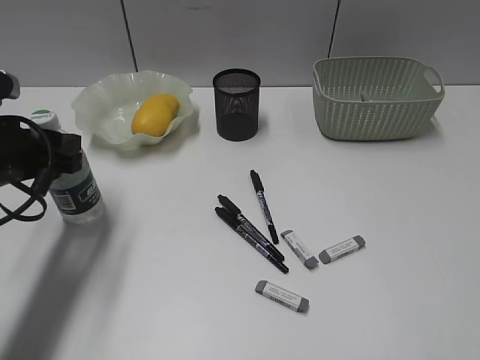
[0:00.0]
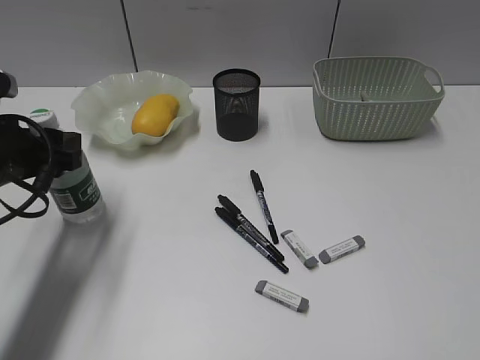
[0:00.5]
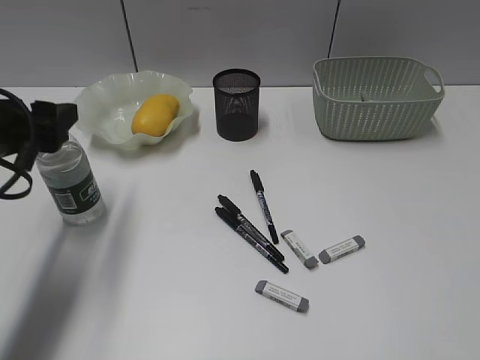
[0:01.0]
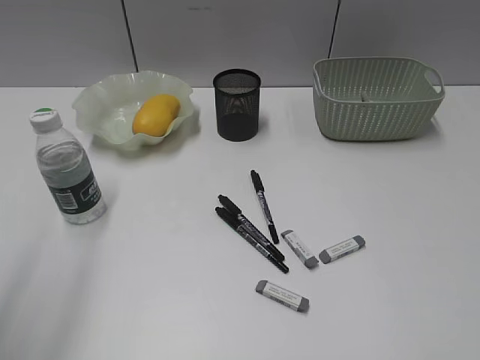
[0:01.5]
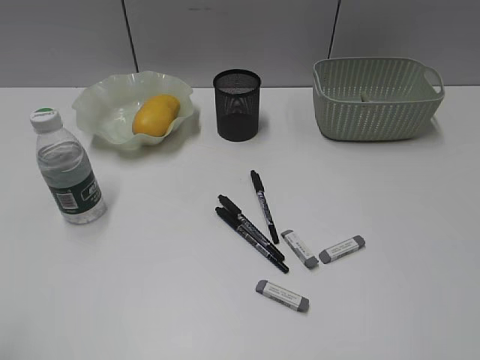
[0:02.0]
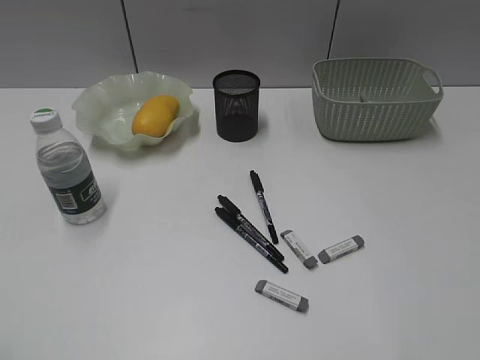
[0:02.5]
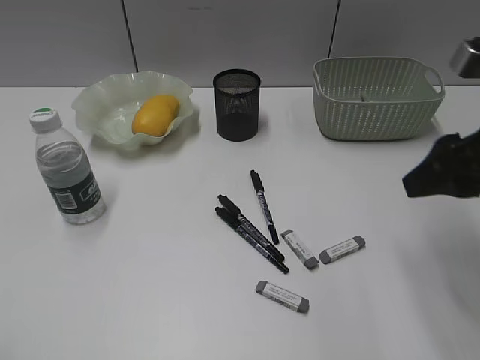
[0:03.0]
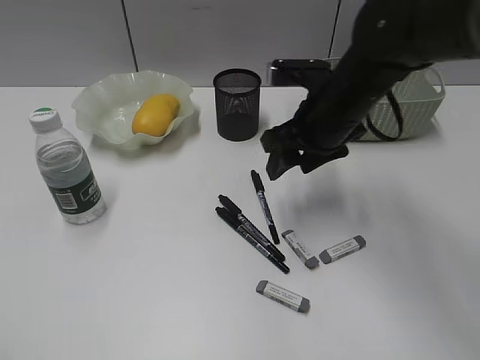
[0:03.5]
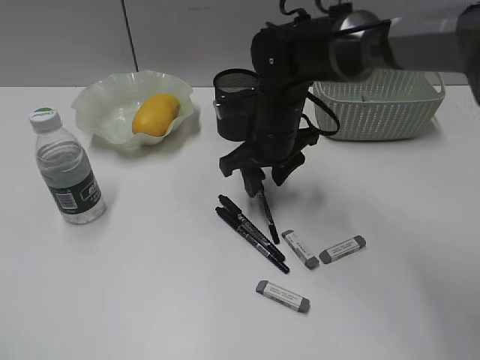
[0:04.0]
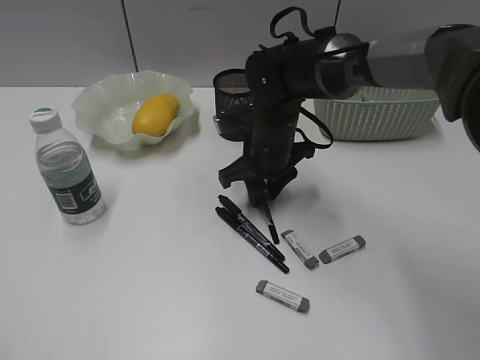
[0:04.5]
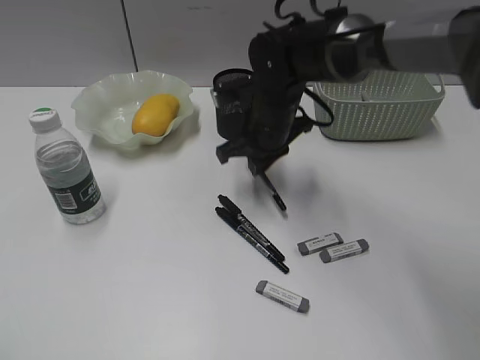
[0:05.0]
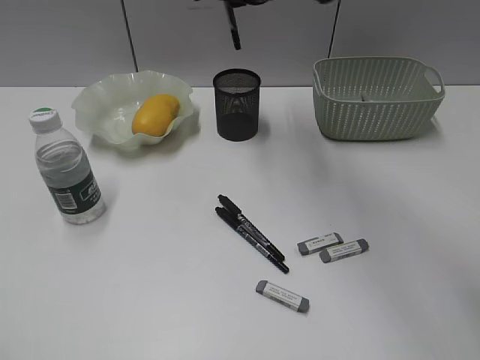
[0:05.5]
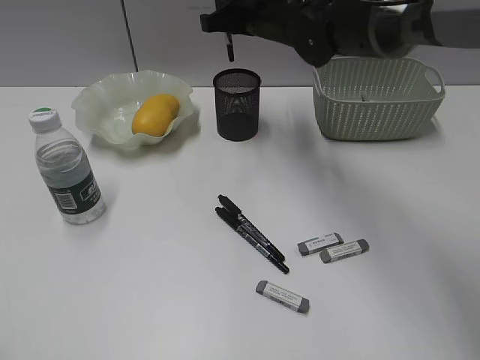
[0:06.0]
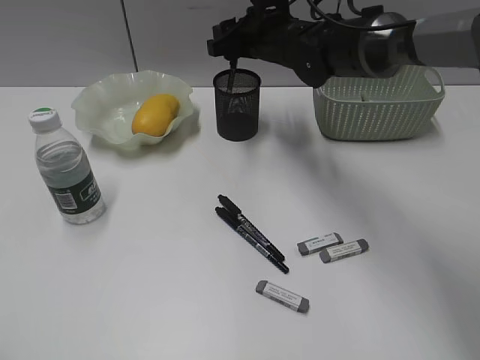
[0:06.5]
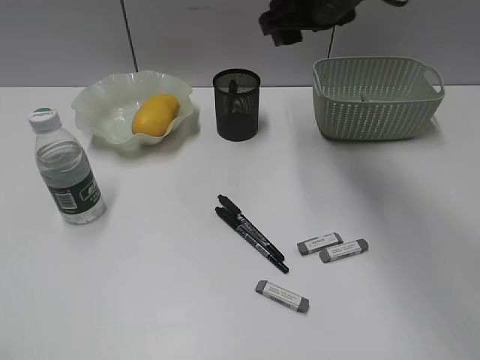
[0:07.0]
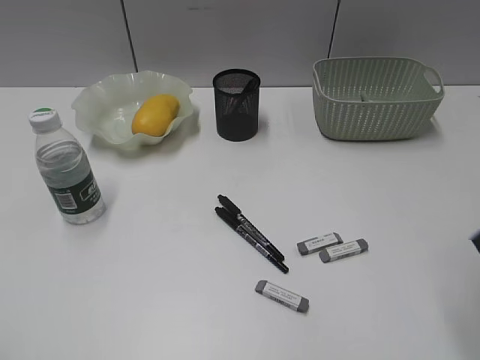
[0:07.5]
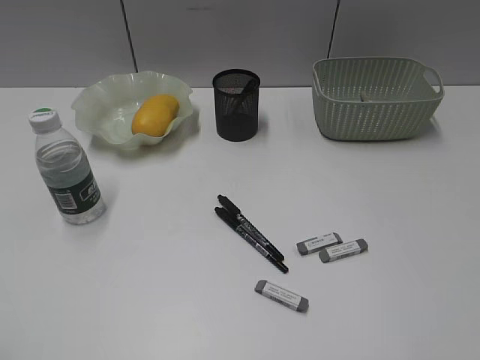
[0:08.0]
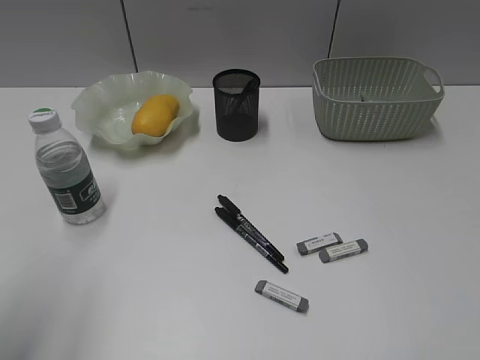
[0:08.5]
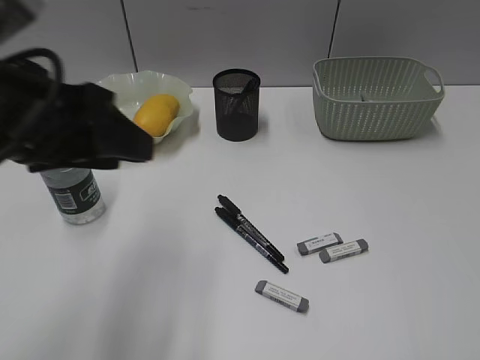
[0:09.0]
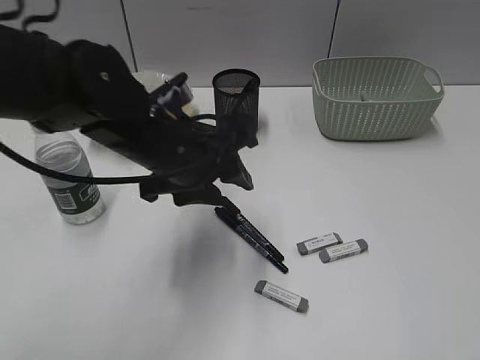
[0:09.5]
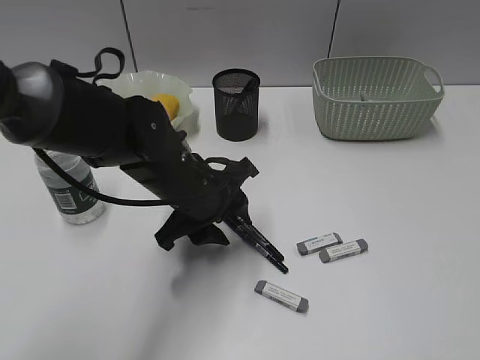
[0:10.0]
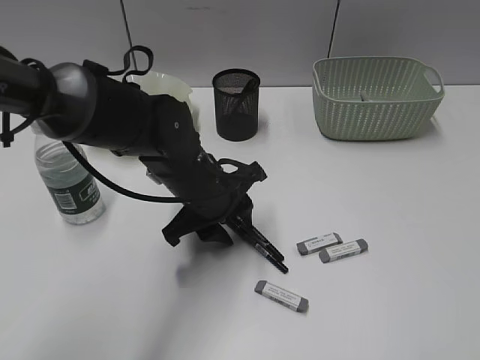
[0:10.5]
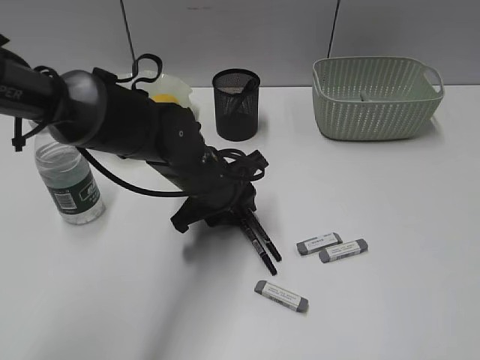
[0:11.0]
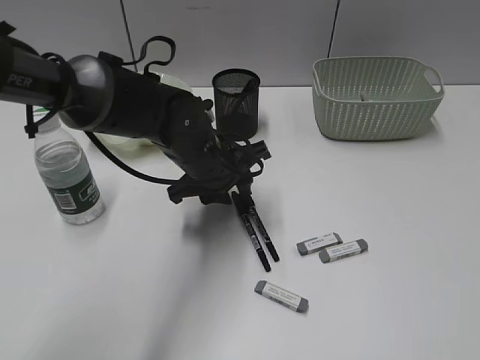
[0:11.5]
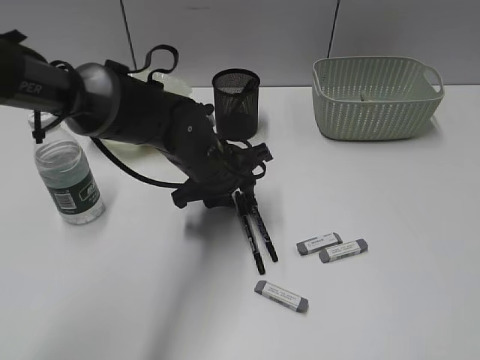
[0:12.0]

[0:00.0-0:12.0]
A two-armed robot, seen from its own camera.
Step, 0:01.5 to 0:04.5: Grasp the black pen with right gripper.
0:00.0 to 0:02.0: The left gripper heads backward and upward, covering roughly 25 cm.
0:02.0 to 0:04.0: The right gripper moves forward, to the left and downward, roughly 50 cm.
0:04.0 to 0:06.0: The right gripper moves upward and forward, roughly 15 cm, and closes its fingers.
0:06.0 to 0:08.0: The right gripper shifts about 50 cm backward and to the right, and opens its fingers.
0:08.0 to 0:10.0: The left gripper travels forward, to the right and downward by roughly 40 cm.
0:10.0 to 0:12.0: The left gripper heads forward, covering about 5 cm.

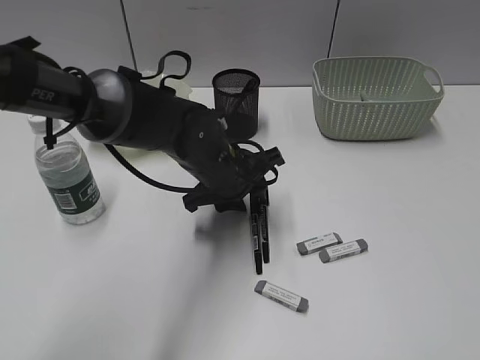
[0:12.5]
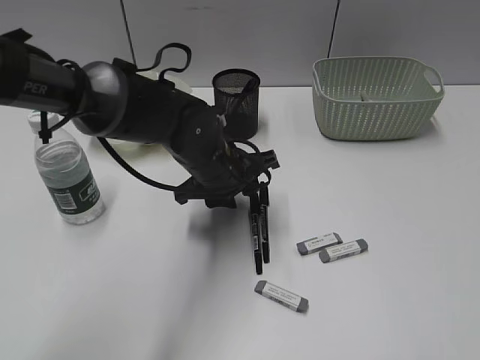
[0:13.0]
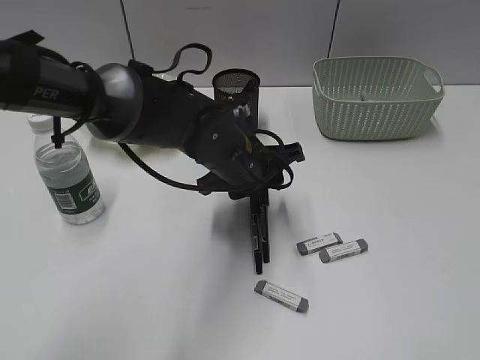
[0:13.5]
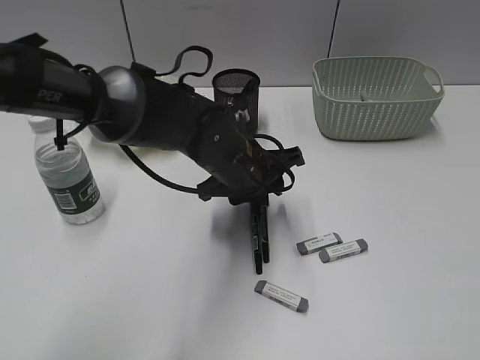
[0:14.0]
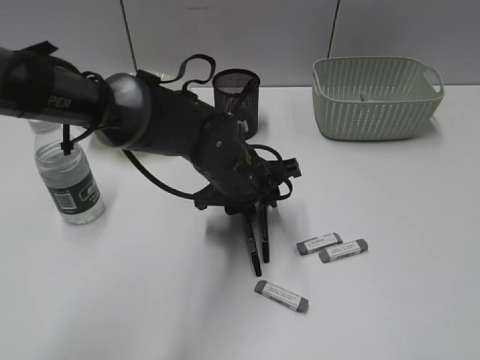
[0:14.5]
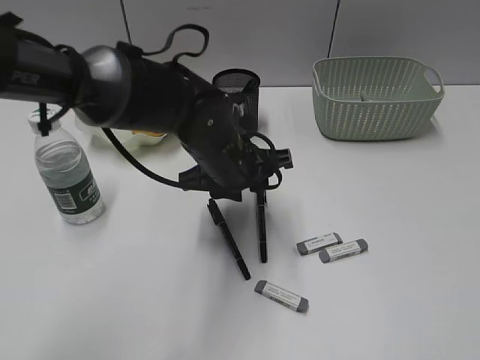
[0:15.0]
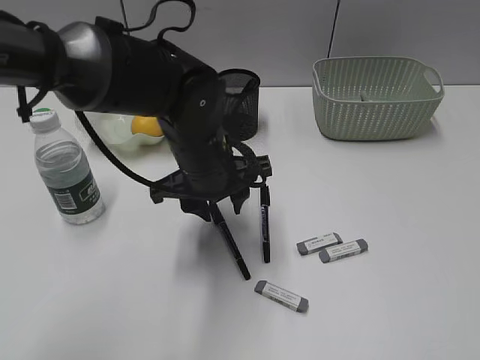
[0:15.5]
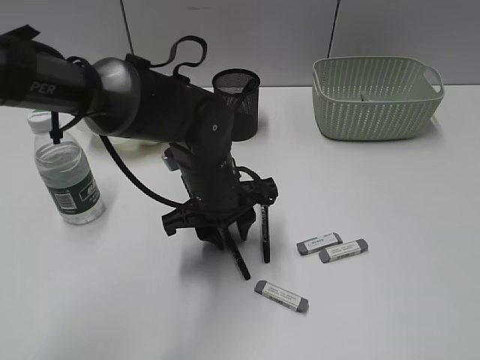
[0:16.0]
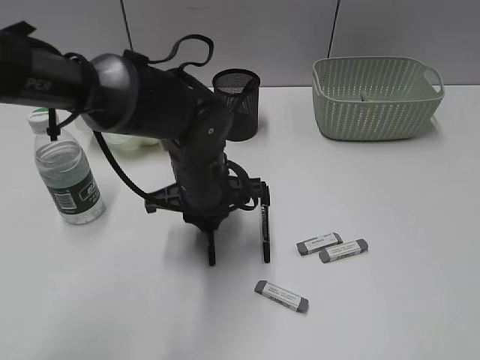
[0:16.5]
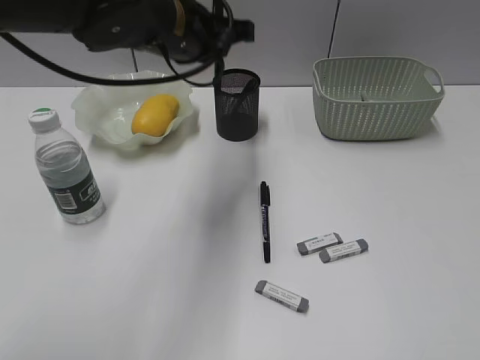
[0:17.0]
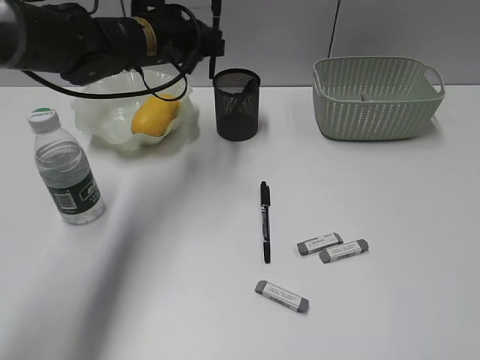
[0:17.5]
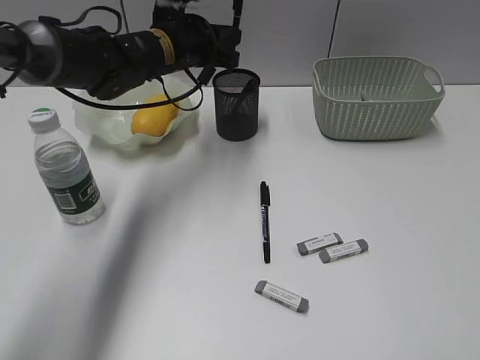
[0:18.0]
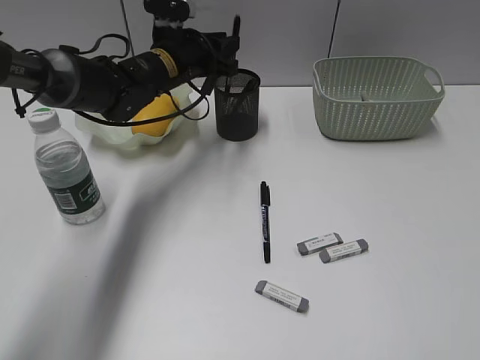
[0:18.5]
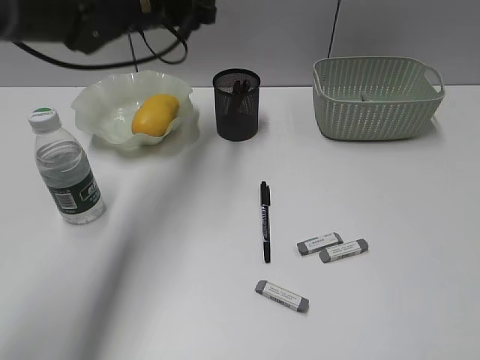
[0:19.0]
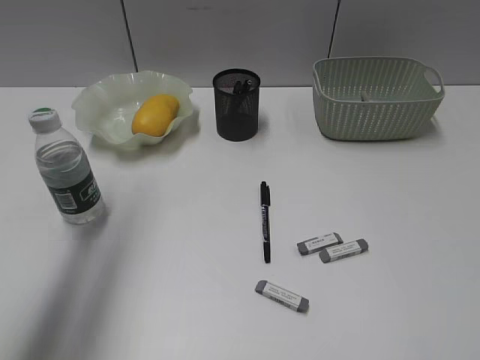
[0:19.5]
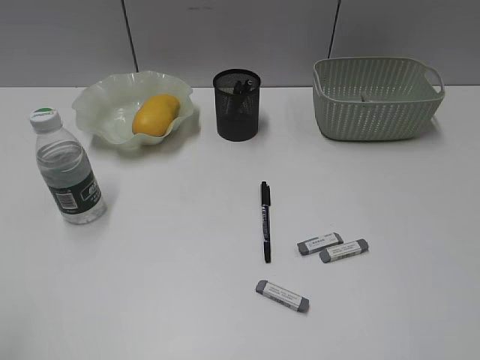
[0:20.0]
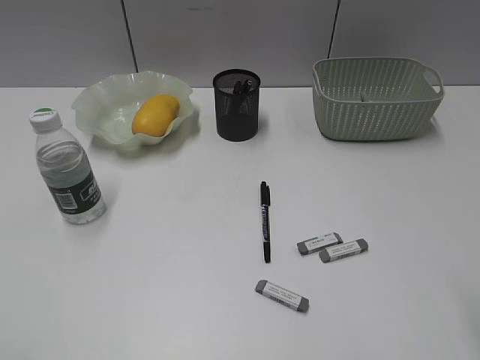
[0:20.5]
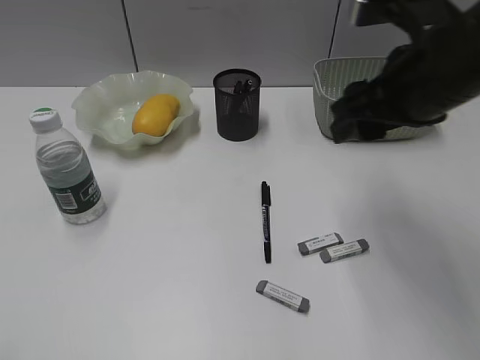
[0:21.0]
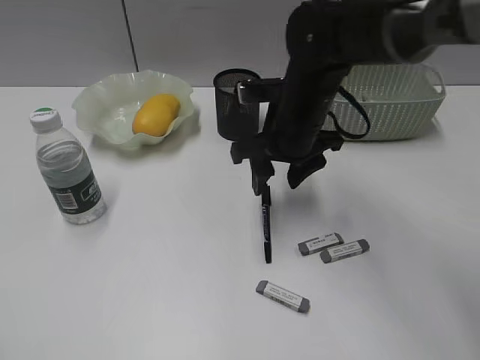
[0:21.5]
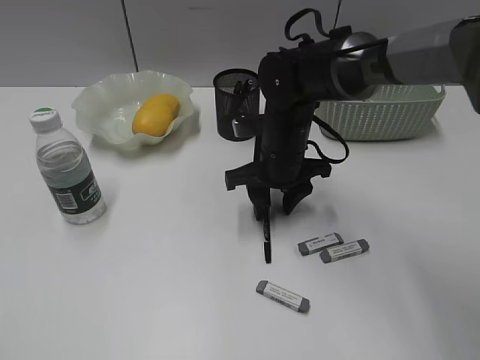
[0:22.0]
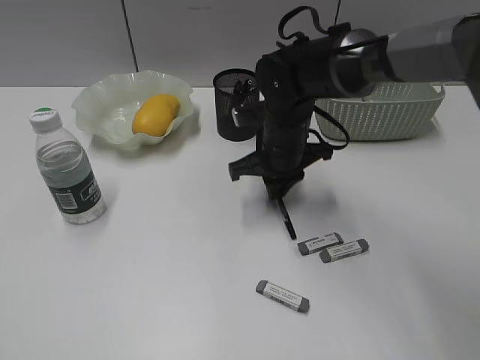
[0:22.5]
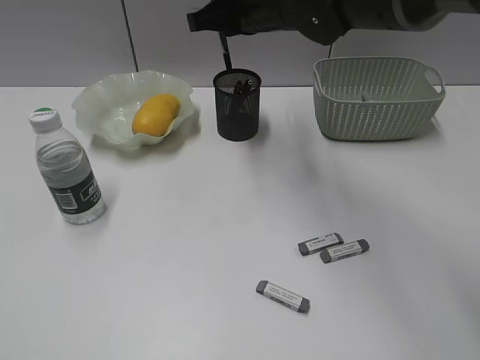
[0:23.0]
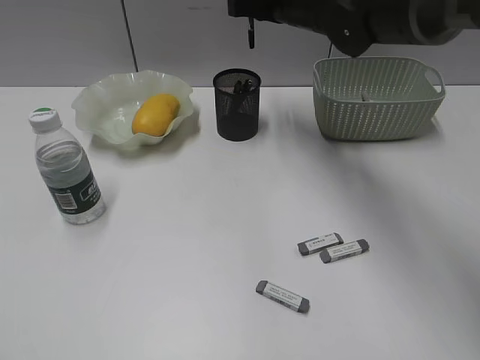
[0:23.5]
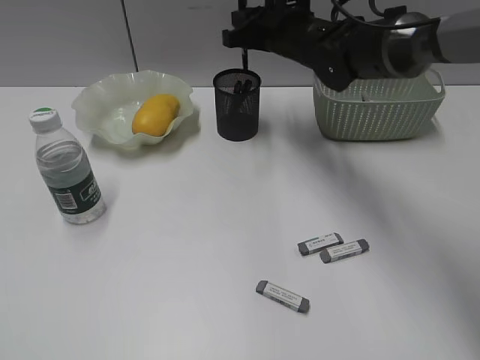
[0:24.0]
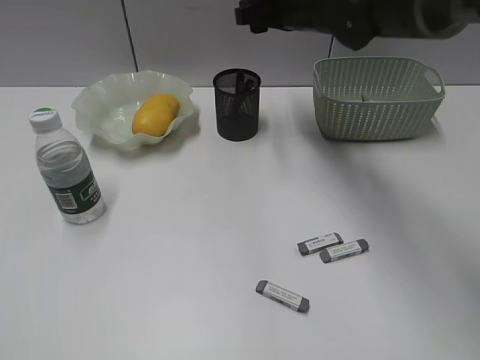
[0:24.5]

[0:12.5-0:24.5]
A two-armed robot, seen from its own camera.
Step, 0:12.5 to 0:16.5: Grasp the black pen with left gripper.
Step, 0:17.0 to 0:18.5: Place the black pen in pen holder with left gripper.
Step, 0:19.0 to 0:22.0: Grasp the black pen with right gripper.
0:12.5 to 0:14.5: The grippers make only small movements.
0:14.5 to 0:16.5: The left gripper closes.
0:16.5 to 0:18.5: The left gripper is displaced forward by about 15 cm.
0:18.5 to 0:20.5: The right gripper travels forward and to the left by about 10 cm, while the left gripper heads backward and to the left, covering roughly 50 cm.
0:20.5 to 0:22.5: The right gripper shifts approximately 40 cm forward, to the left and downward, and closes its fingers.
0:22.5 to 0:24.5: The right gripper swings up and down, approximately 15 cm each way, with 2 reversals, and opens.

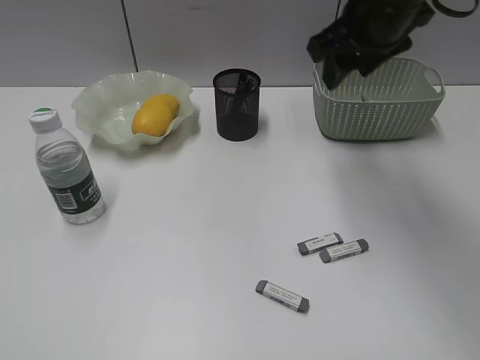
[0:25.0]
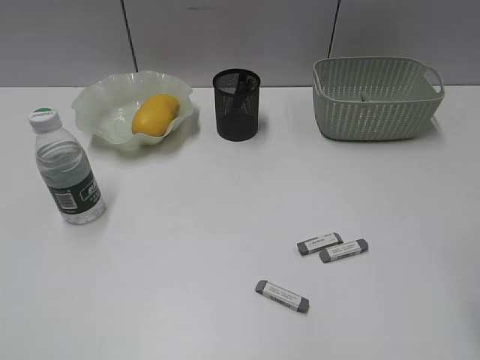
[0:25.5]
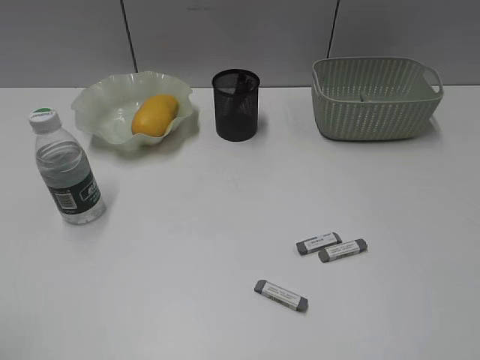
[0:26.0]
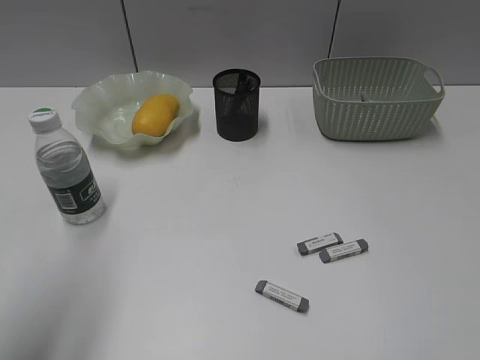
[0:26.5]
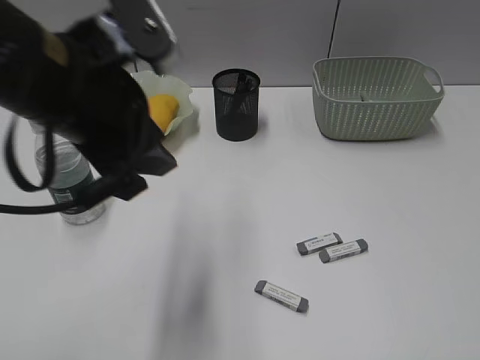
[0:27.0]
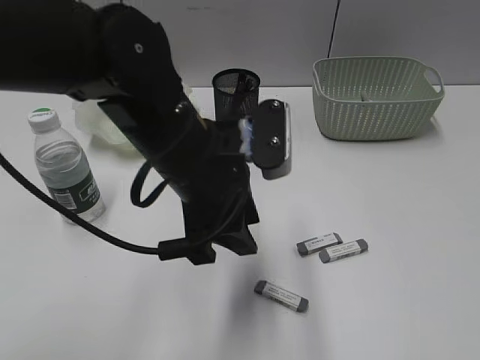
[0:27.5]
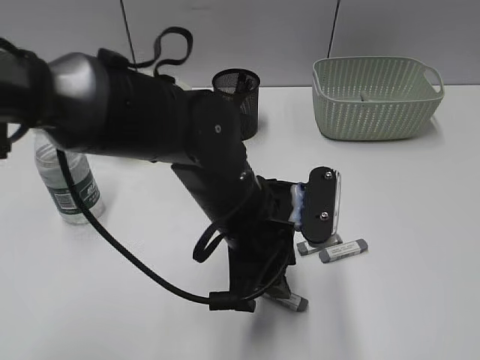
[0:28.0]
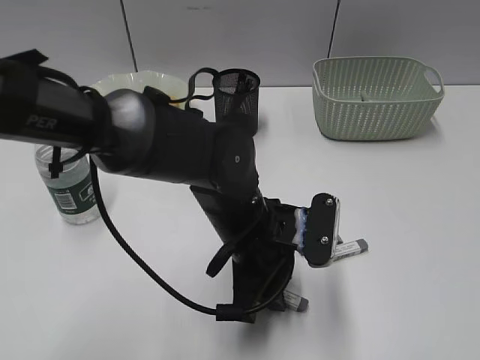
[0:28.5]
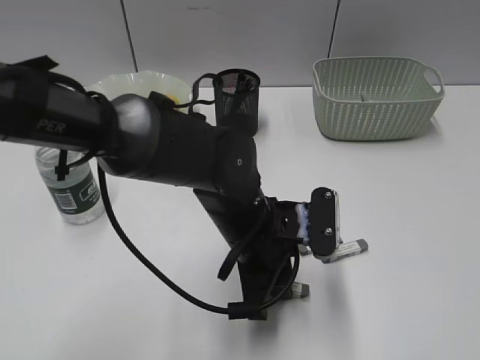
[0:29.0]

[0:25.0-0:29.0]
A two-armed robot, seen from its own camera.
0:25.0 to 0:27.0: The right gripper is displaced backward and to the right by about 40 cm. Meanwhile the left gripper goes approximately 30 cm forward and to the right.
0:27.0 to 0:29.0: The left gripper goes roughly 20 cm downward and to the right.
